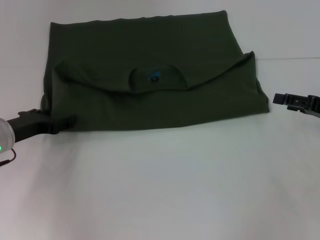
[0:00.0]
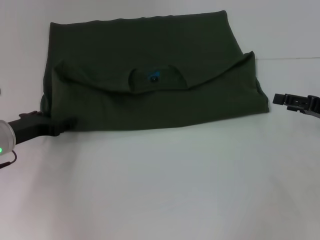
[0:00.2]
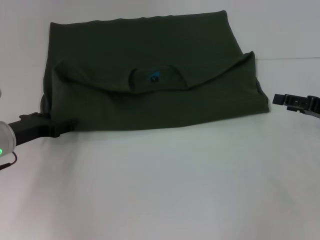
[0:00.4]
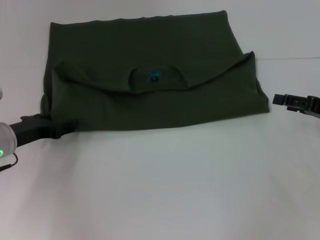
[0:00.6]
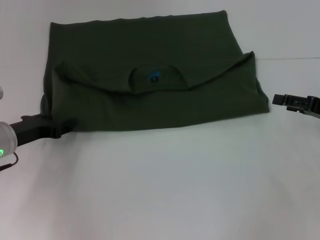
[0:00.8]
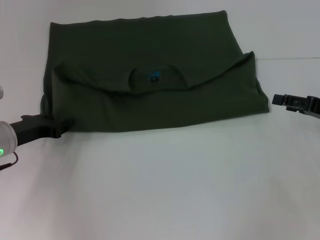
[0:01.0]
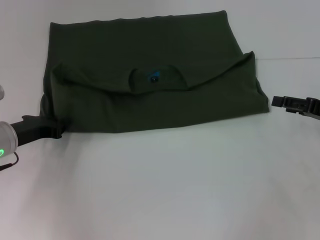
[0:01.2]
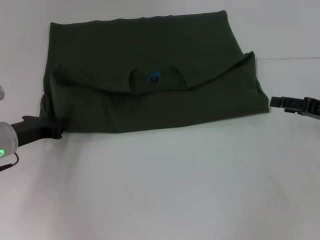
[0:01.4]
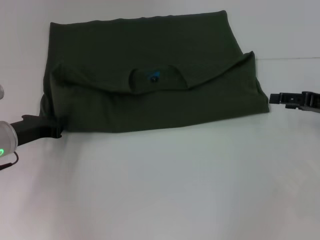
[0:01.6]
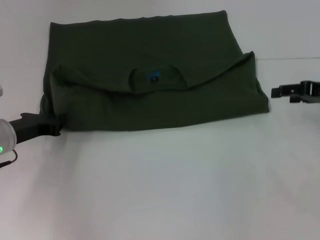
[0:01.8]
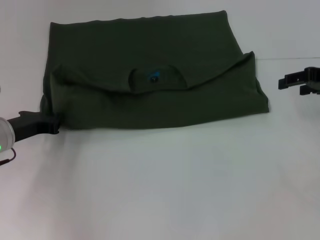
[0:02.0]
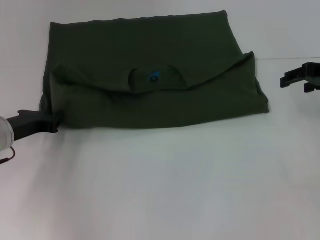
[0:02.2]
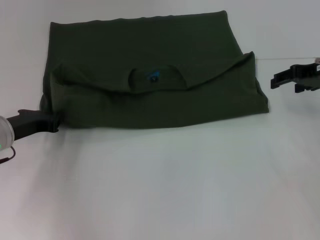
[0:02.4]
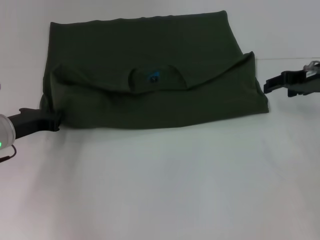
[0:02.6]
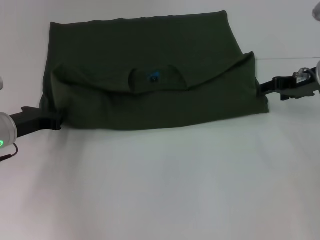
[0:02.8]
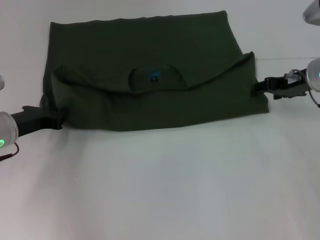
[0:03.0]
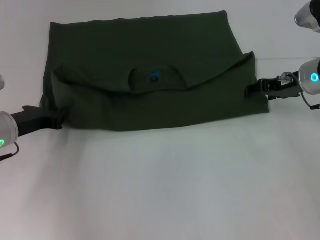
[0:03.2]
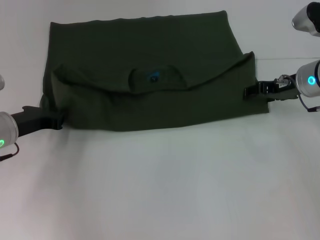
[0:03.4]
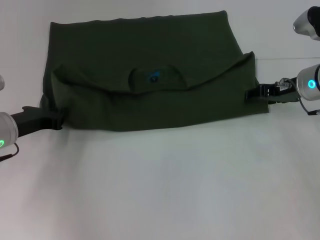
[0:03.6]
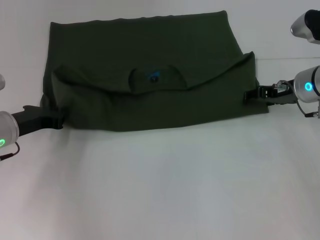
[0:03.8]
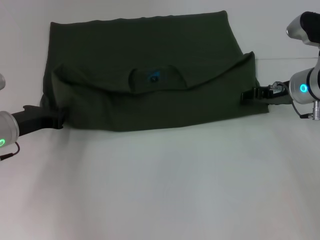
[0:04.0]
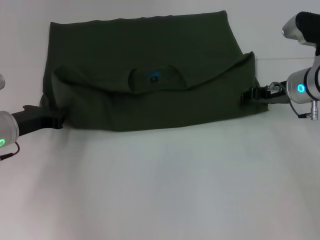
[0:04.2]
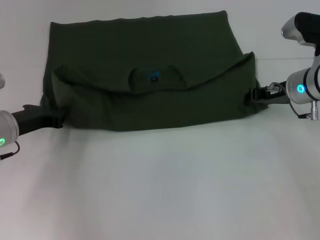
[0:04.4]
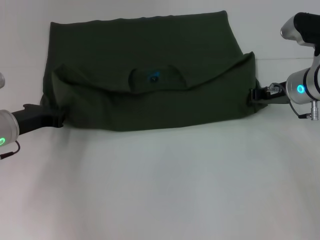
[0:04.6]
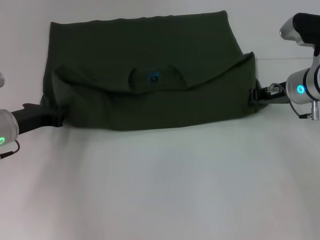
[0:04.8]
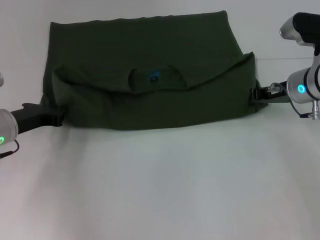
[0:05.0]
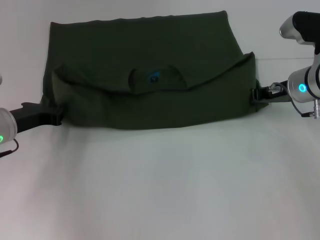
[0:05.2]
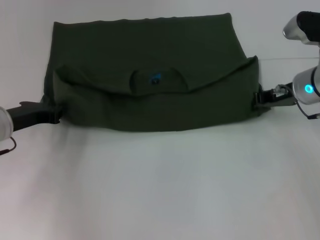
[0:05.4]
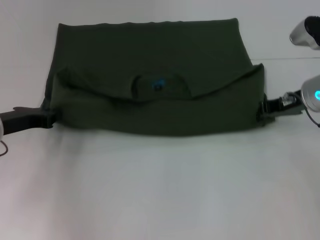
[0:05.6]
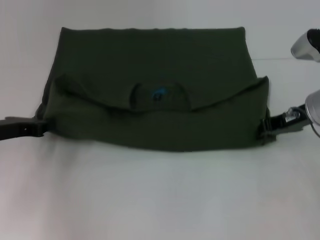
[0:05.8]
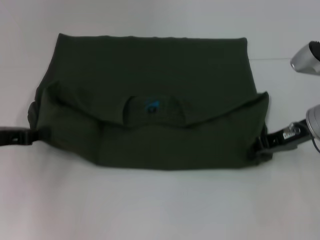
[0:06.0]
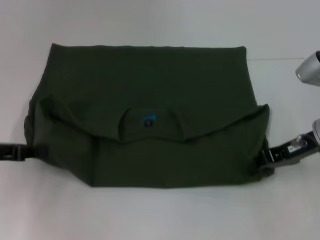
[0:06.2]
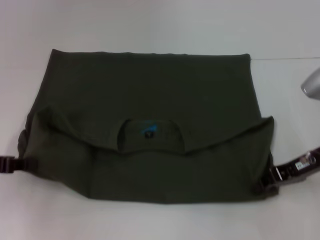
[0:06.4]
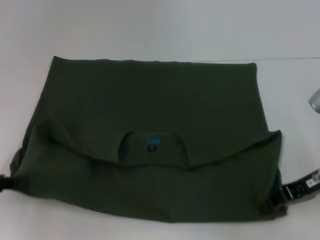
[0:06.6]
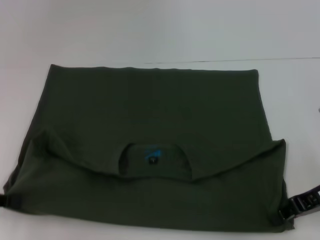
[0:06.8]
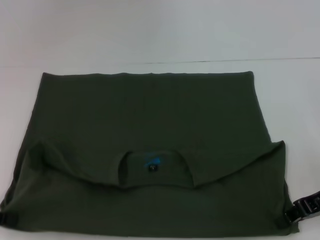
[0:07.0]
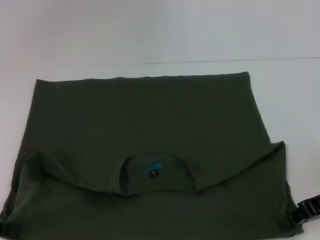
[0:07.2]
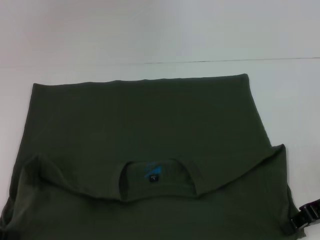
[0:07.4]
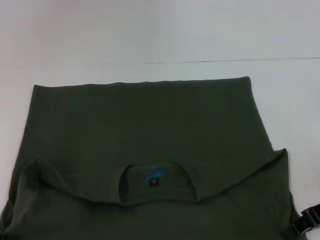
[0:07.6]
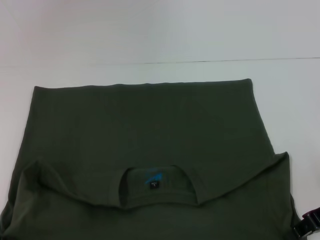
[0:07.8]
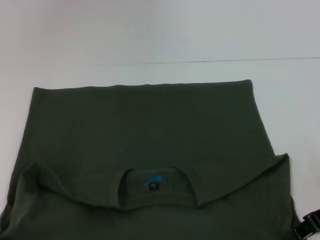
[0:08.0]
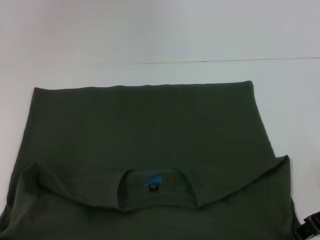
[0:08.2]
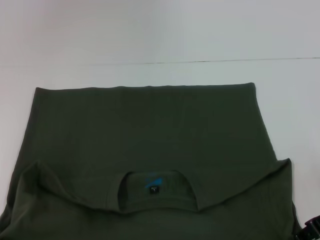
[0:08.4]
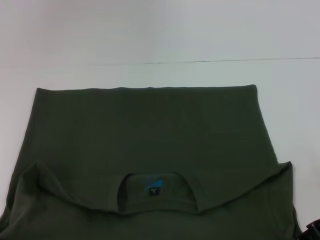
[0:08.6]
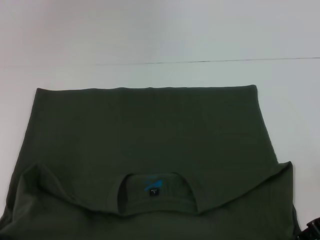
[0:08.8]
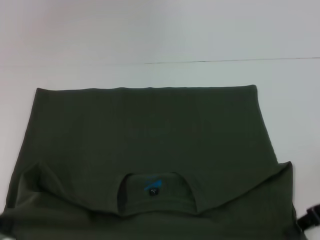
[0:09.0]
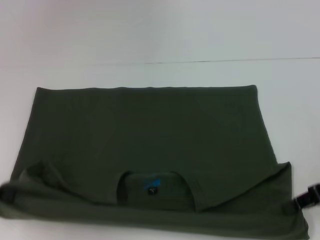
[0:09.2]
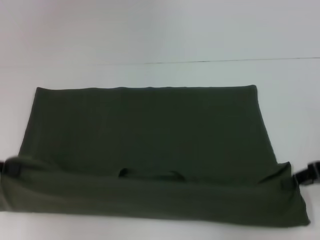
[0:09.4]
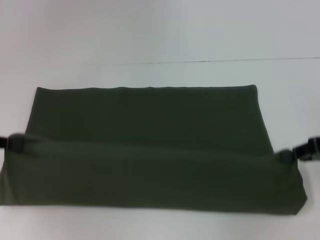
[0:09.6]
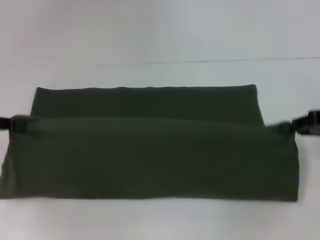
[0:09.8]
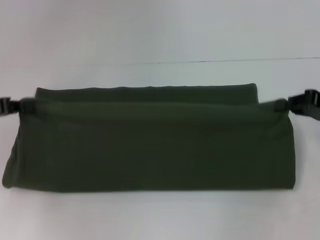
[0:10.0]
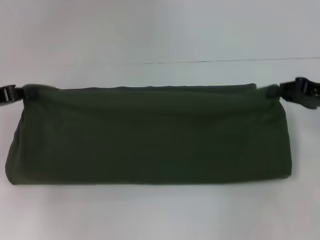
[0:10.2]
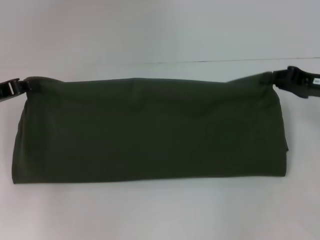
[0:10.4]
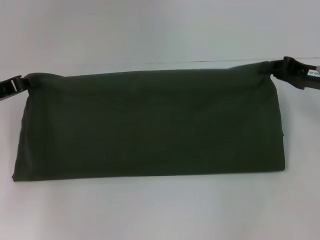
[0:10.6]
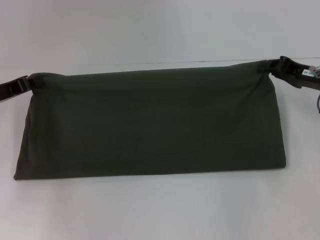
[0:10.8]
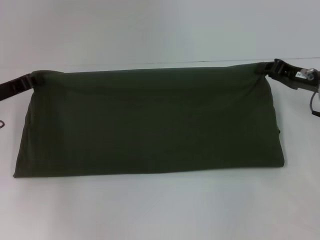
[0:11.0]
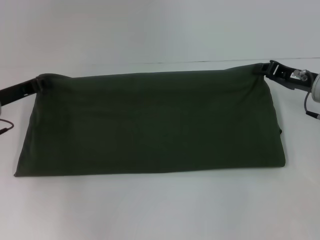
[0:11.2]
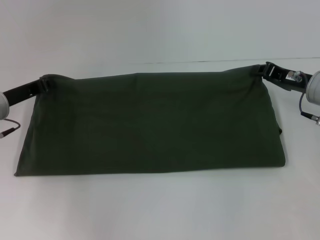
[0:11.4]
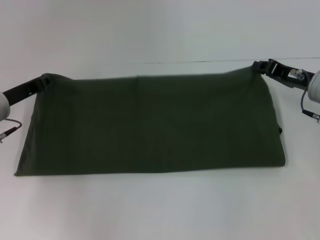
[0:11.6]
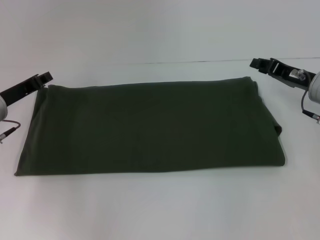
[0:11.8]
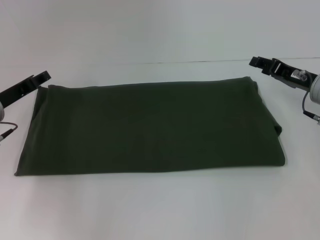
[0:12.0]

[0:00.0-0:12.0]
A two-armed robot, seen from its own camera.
Step, 0:00.0 to 0:07.2: Pull the clothes with your left hand.
Step, 0:00.0 to 0:07.2: Pull the clothes with your right hand.
Step, 0:07.4 to 0:11.6: Fold the clothes with your right hand.
0:00.0 to 0:01.6: The left gripper closes its fingers.
0:01.6 to 0:03.0: The right gripper is displaced to the left and forward by approximately 10 cm.
0:03.0 to 0:04.4: The grippers move only a little.
0:04.4 to 0:06.0: The right gripper heads backward, covering some 5 cm, and closes up, while the left gripper is displaced to the left by some 5 cm.
0:06.0 to 0:07.6: The grippers both shift backward by roughly 10 cm.
0:07.6 to 0:09.0: There are only small adjustments of the grippers.
0:09.0 to 0:10.4: Both grippers travel together forward, about 10 cm.
0:10.4 to 0:12.0: The right gripper shifts by some 5 cm. Meanwhile the left gripper travels downward by roughly 5 cm.

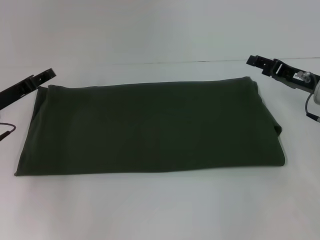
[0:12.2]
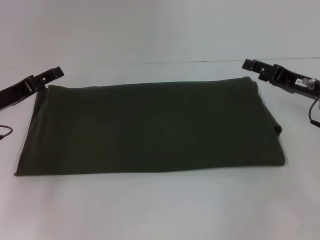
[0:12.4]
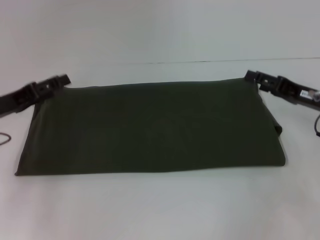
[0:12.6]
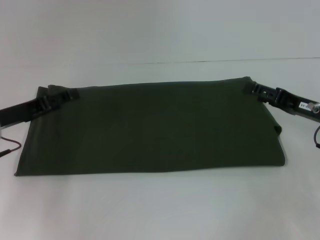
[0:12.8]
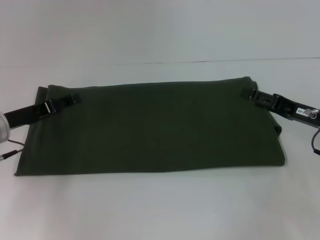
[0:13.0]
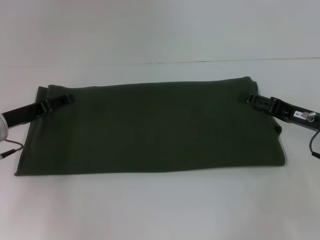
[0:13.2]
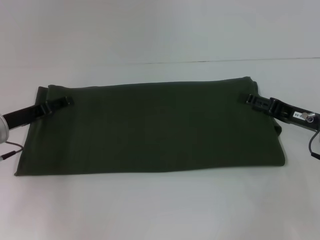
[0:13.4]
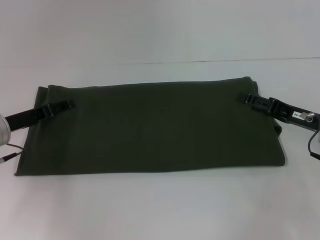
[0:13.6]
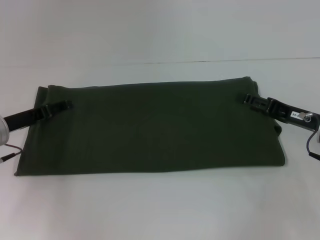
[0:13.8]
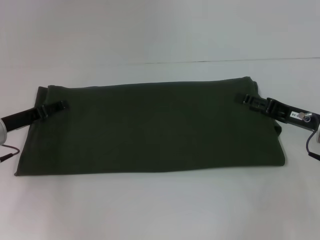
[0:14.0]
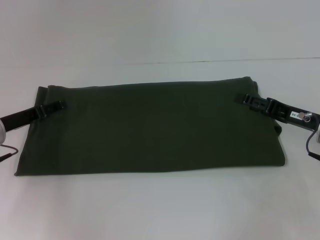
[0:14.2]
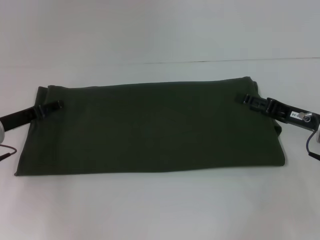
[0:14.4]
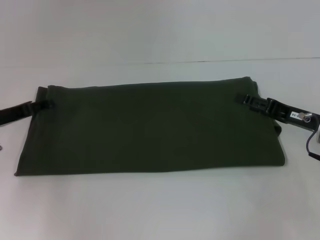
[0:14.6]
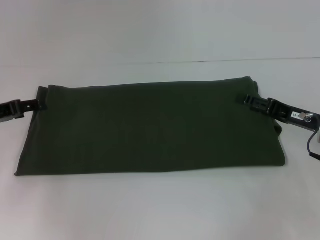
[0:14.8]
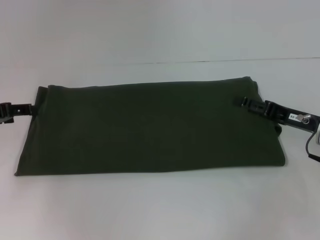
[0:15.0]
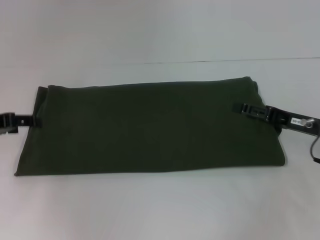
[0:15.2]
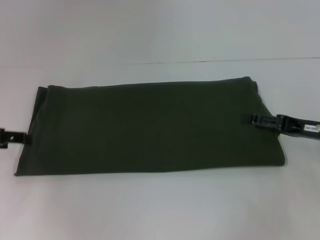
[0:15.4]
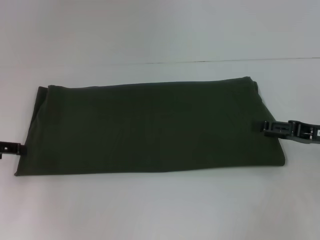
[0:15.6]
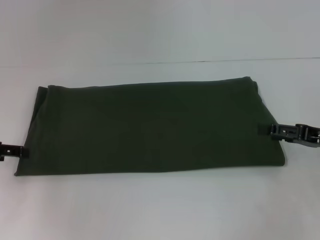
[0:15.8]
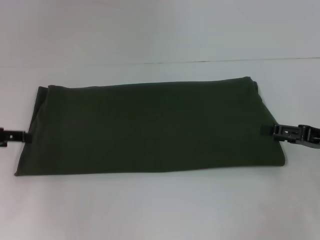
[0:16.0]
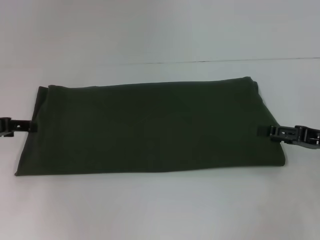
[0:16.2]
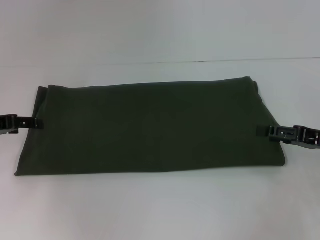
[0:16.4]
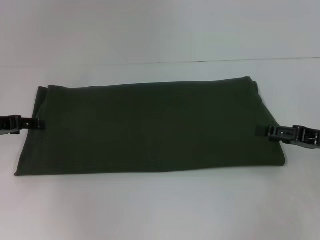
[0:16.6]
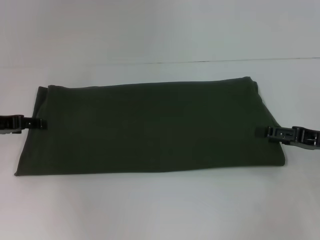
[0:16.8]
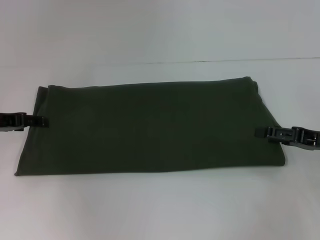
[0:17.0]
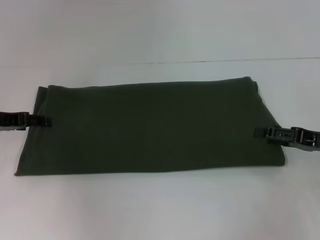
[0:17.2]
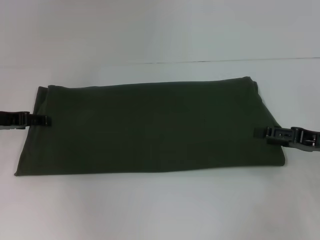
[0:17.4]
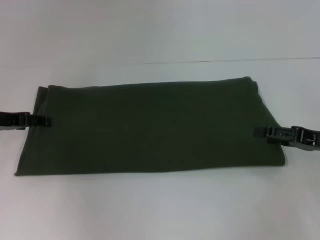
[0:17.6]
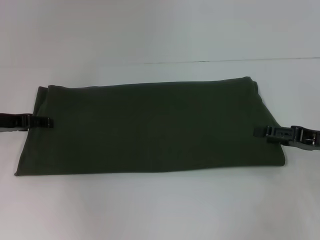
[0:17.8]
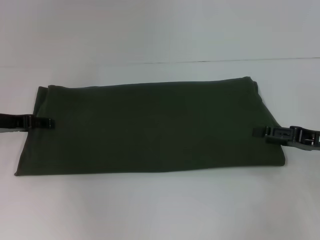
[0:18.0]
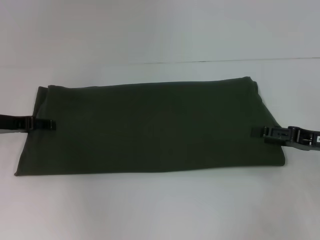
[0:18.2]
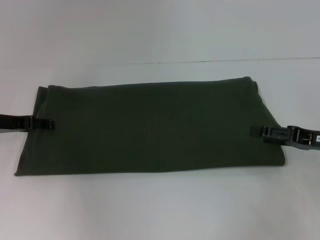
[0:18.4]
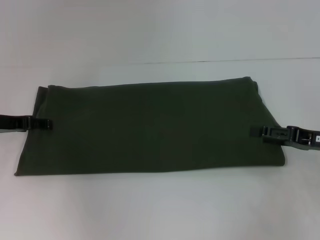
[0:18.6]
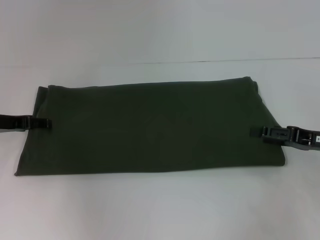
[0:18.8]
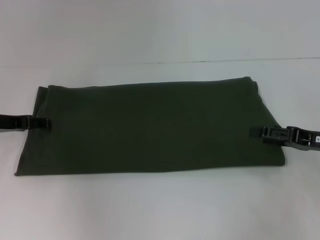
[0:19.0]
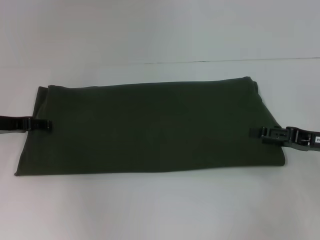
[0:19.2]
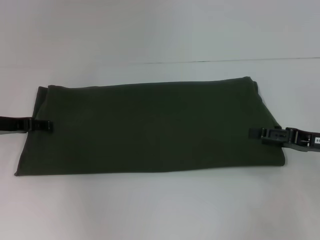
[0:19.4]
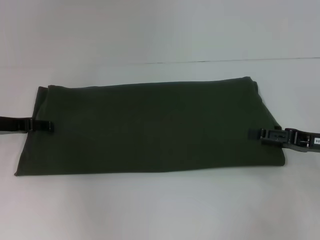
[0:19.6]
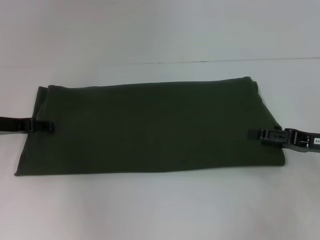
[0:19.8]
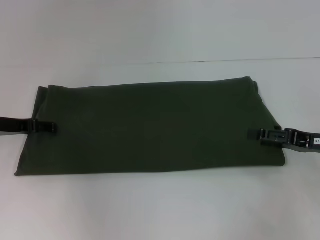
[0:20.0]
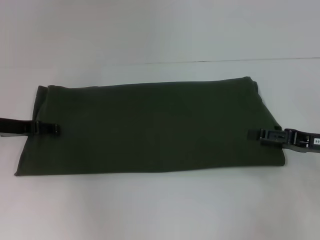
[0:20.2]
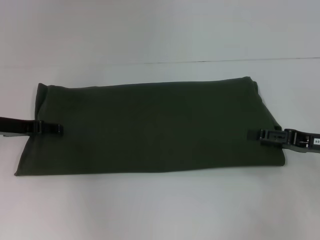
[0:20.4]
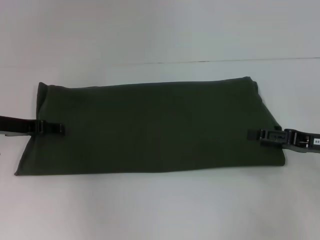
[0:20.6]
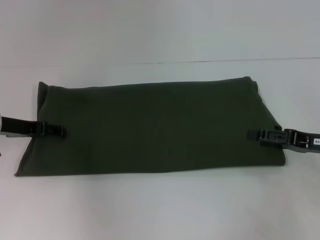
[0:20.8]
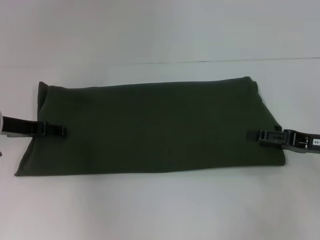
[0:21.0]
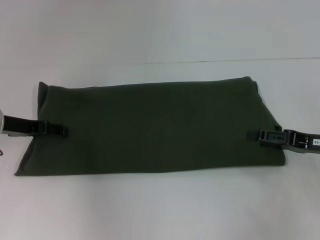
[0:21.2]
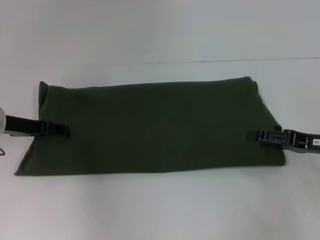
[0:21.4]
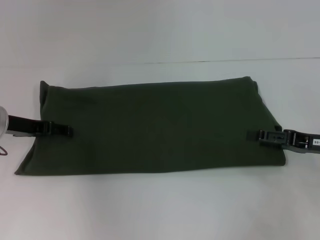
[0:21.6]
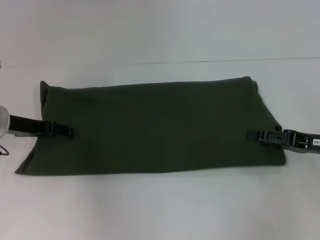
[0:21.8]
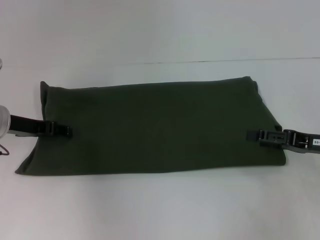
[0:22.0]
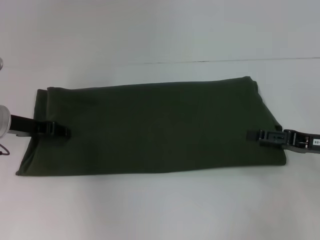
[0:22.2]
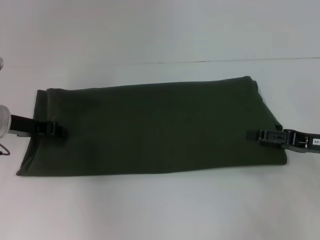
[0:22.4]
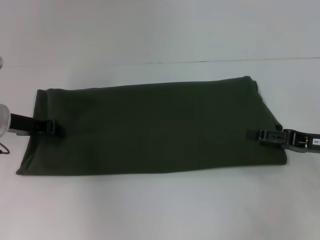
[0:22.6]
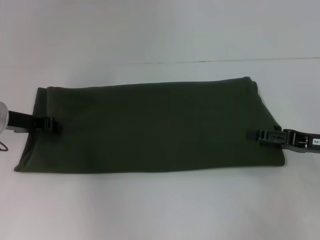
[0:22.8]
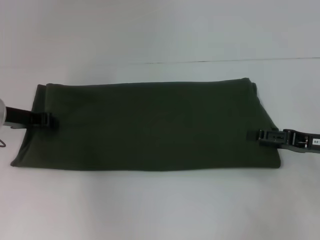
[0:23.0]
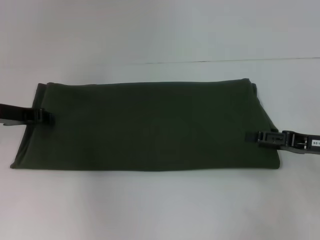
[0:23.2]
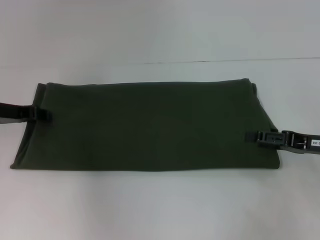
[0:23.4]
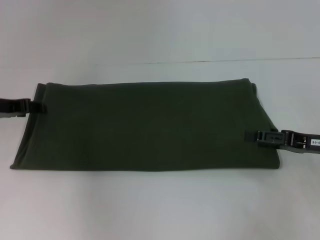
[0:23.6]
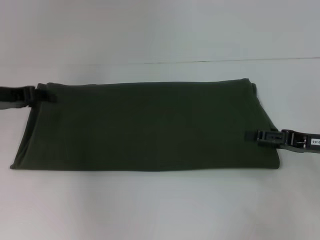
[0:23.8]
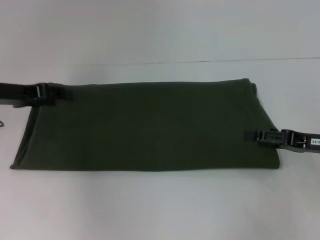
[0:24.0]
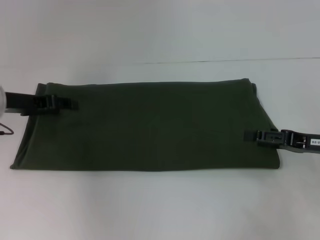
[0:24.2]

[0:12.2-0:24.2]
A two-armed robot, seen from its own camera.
0:12.2 to 0:13.8: The left gripper opens its fingers. Meanwhile the right gripper travels backward by approximately 5 cm.
0:13.8 to 0:15.2: The left gripper shifts roughly 10 cm upward and to the left.
0:15.2 to 0:16.6: The grippers move only a little.
0:18.2 to 0:19.8: Both grippers stay about where they are.
0:19.8 to 0:21.2: The grippers stay close to where they were, moving slightly.
0:21.2 to 0:22.6: The left gripper closes its fingers.
0:22.6 to 0:24.2: The left gripper opens.
